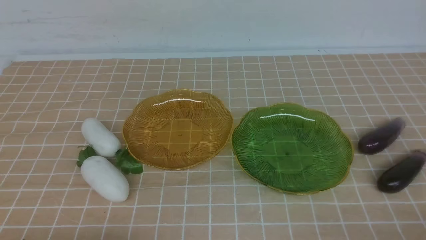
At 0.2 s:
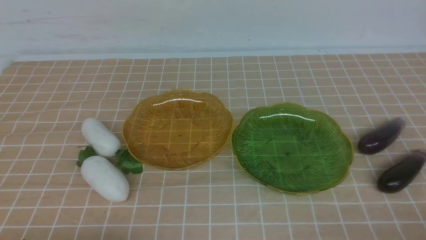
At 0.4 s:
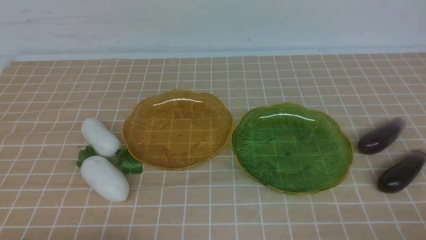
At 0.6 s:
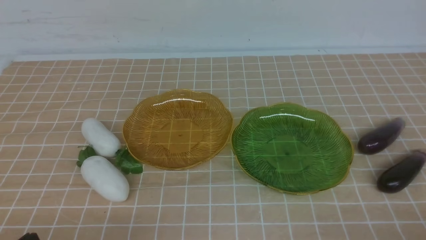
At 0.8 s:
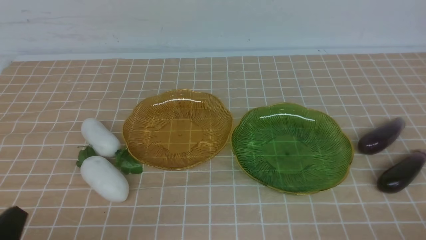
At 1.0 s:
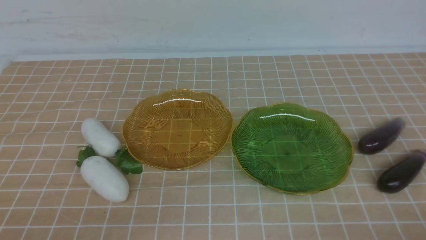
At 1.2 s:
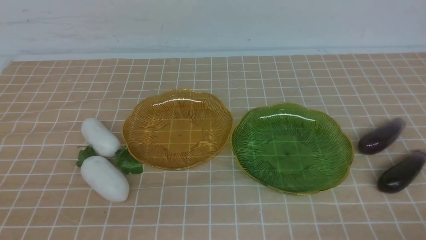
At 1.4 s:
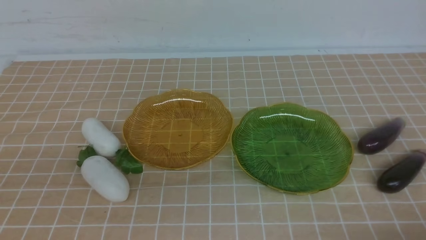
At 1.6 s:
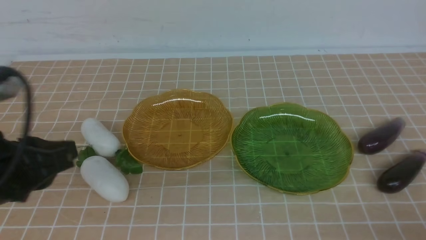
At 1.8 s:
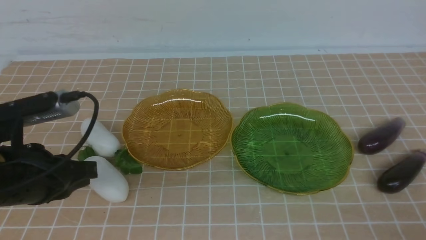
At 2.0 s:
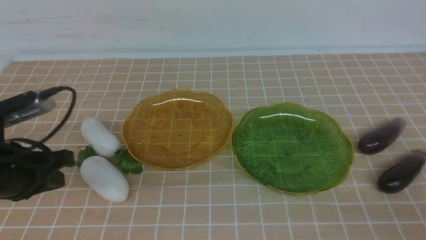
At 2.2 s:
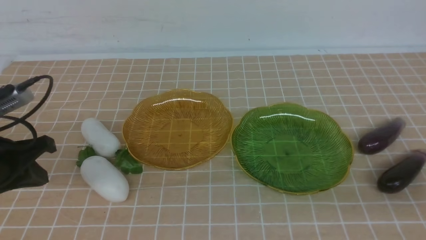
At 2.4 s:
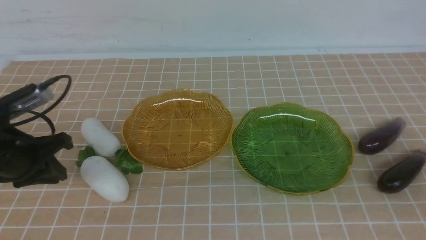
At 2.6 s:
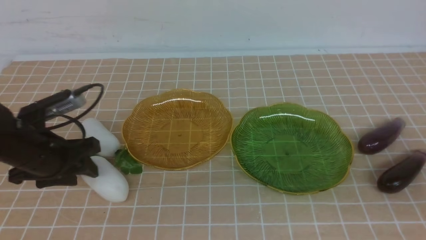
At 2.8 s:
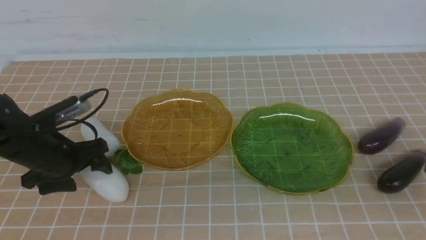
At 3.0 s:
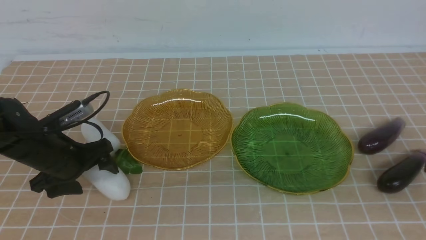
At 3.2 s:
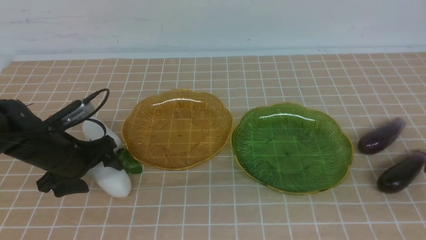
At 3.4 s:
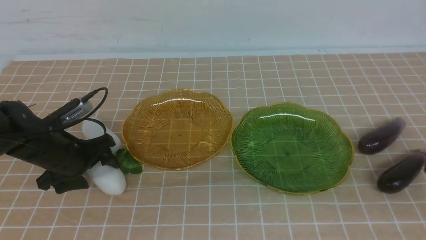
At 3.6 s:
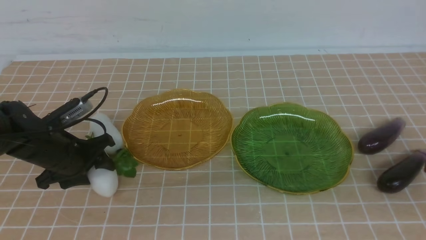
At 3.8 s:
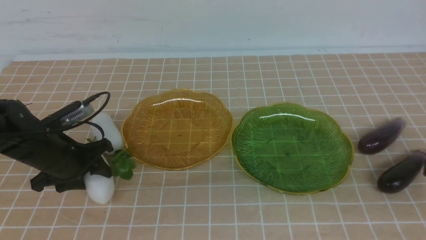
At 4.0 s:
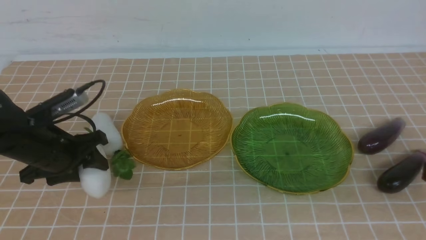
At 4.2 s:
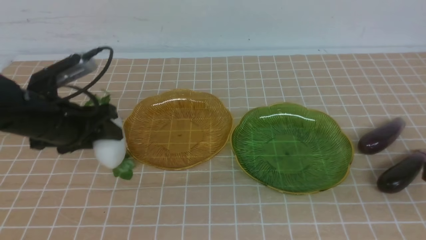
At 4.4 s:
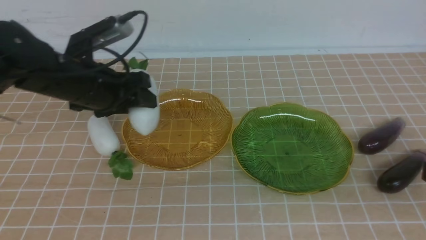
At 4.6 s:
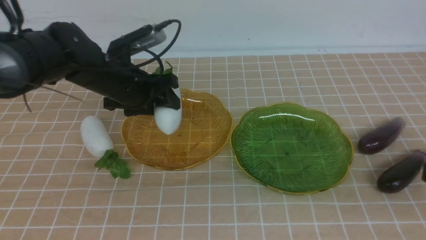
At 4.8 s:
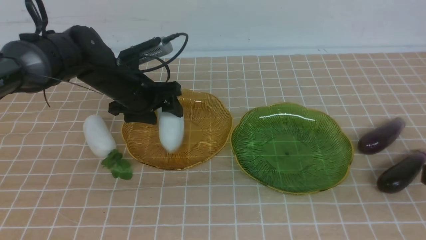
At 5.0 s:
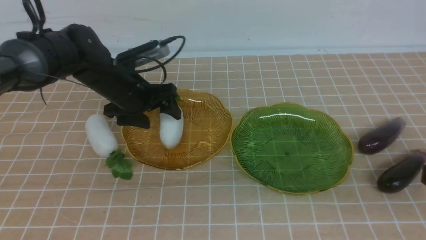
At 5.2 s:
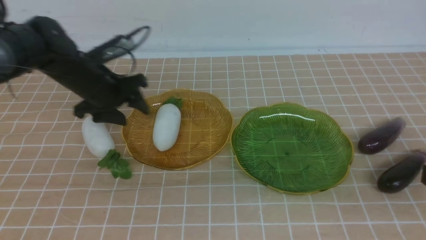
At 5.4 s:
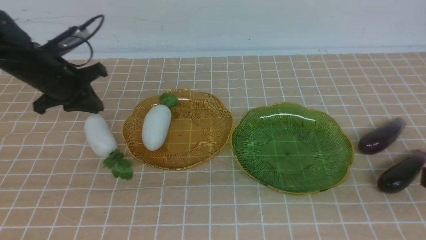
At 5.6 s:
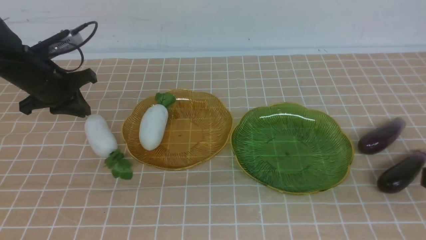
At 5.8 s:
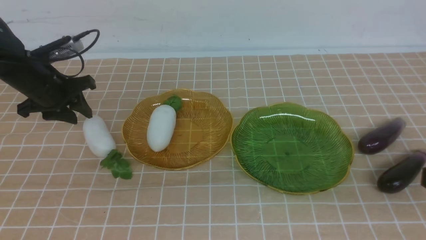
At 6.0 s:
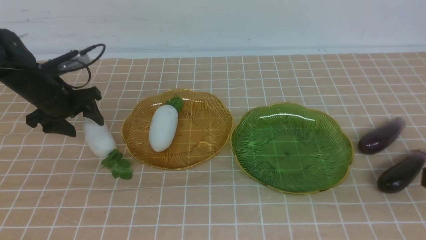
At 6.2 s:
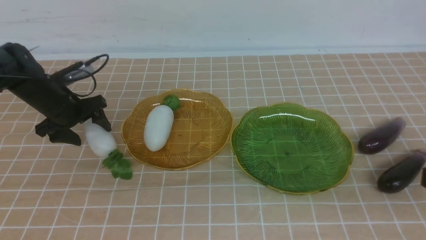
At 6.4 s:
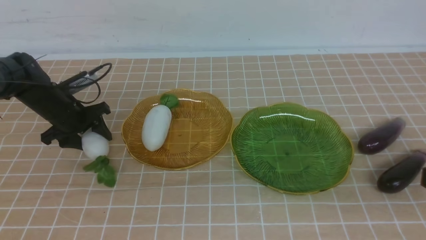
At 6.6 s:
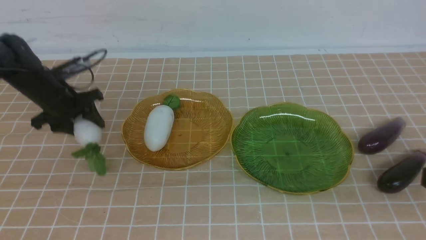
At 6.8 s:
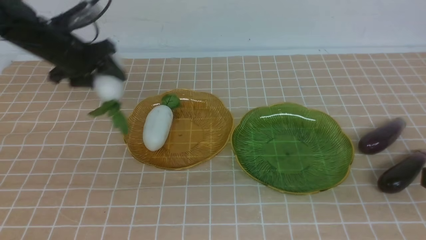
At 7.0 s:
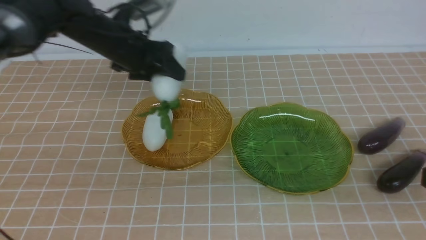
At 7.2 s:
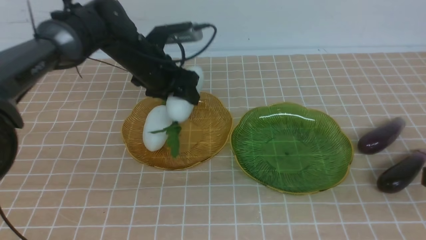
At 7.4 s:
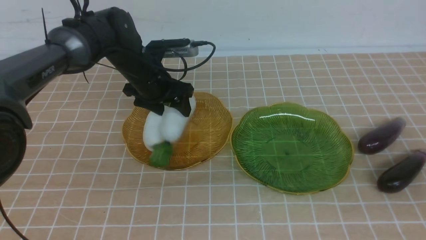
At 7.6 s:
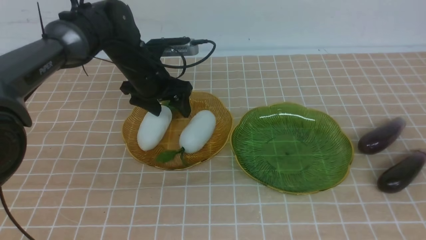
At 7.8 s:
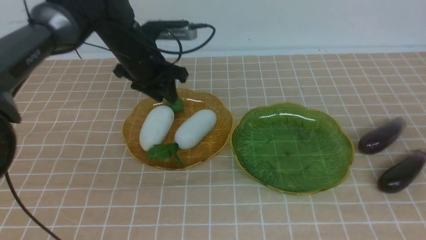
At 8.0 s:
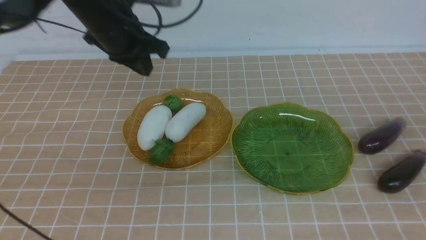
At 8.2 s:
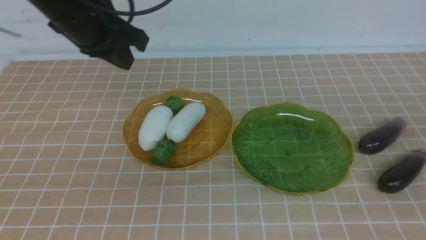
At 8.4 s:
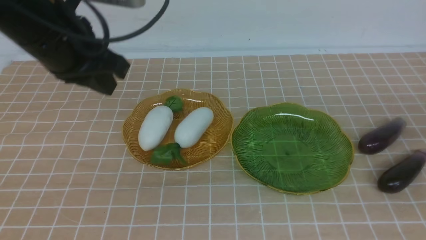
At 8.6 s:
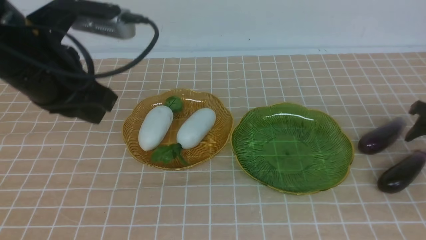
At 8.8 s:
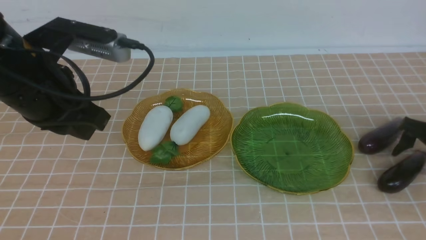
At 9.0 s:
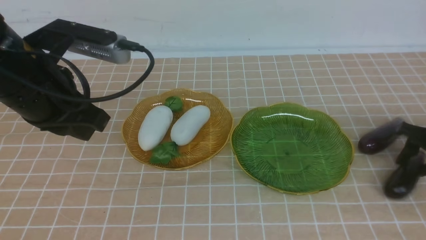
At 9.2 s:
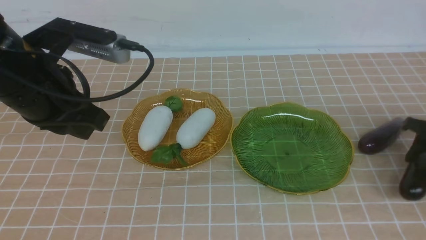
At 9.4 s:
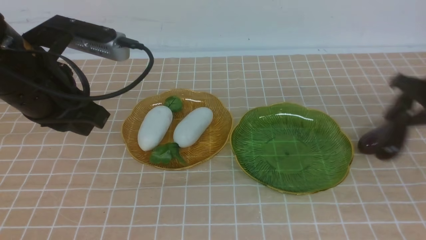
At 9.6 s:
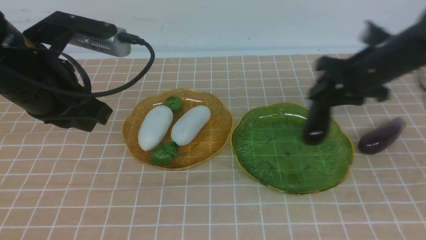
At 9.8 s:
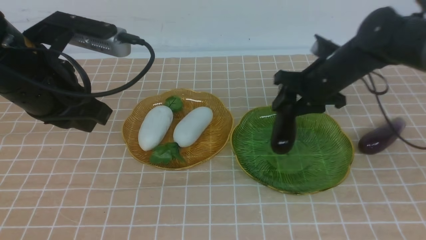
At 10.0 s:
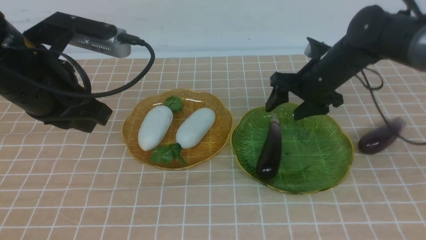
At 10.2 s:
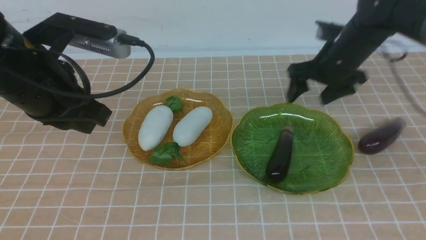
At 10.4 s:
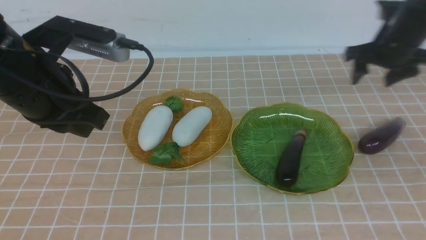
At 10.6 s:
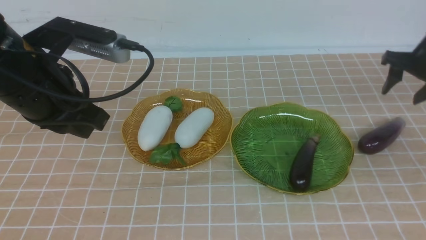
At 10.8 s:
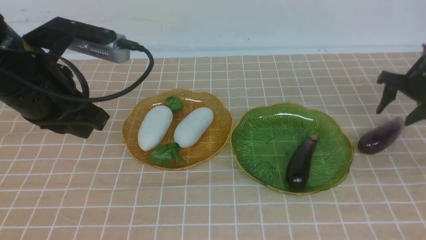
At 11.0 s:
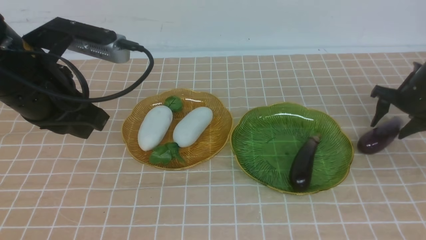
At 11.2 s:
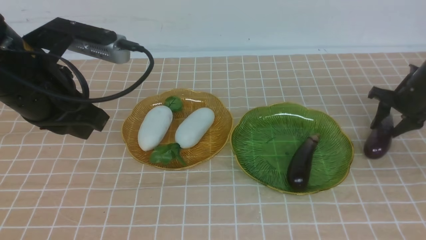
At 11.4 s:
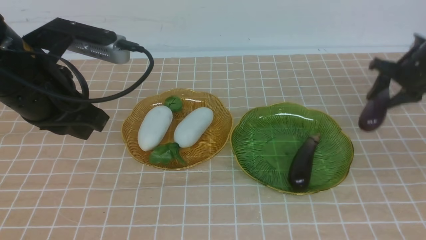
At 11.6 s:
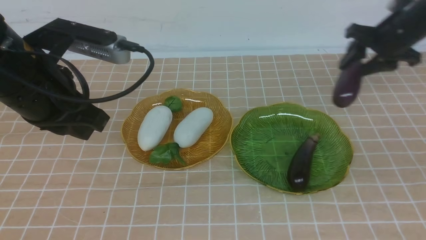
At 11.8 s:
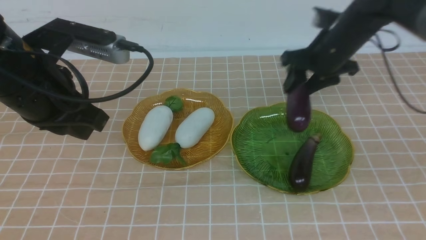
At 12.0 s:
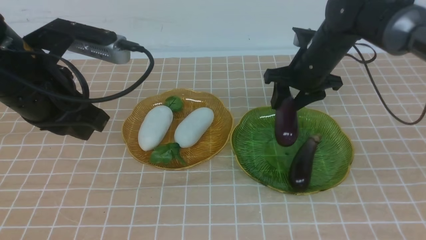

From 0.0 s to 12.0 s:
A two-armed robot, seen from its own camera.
Step, from 0.0 s to 7.6 s: use the left arm to grab a radish and put it into the left plate.
From 0.0 s to 1.6 s: The left gripper goes about 20 cm forward and upward.
From 1.6 s to 3.0 s: The left gripper shifts roughly 15 cm forward and downward, and opens. Meanwhile the right gripper heads upward, covering roughly 10 cm.
From 3.0 s to 4.4 s: The left gripper is displaced upward and to the right by some 10 cm, and closes its fingers.
From 4.4 s to 6.0 s: The left gripper shifts about 15 cm to the left, downward and forward, and closes, then opens again.
From 6.0 s to 7.6 s: The right gripper moves forward, about 10 cm; the left gripper travels to the right and upward by about 20 cm, and closes its fingers.
From 7.6 s to 9.0 s: The left gripper moves backward, some 20 cm, and closes up; the right gripper moves downward and forward, roughly 25 cm, and opens.
From 9.0 s to 10.4 s: The right gripper shifts approximately 15 cm upward and forward, and travels to the left and back again, approximately 20 cm each way.
From 10.4 s to 12.0 s: The right gripper goes about 15 cm to the left and upward.

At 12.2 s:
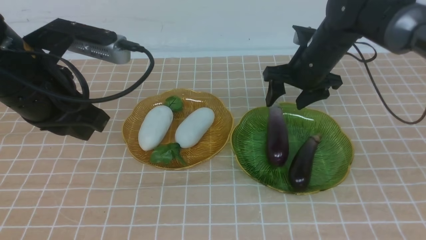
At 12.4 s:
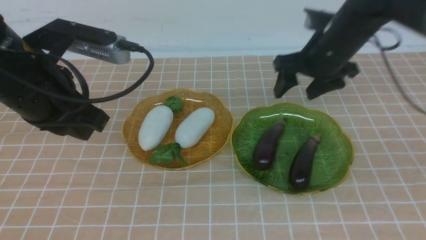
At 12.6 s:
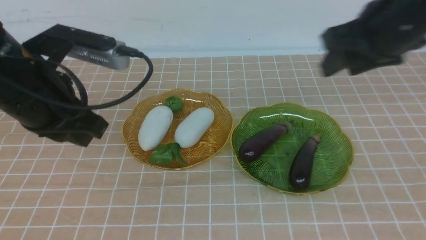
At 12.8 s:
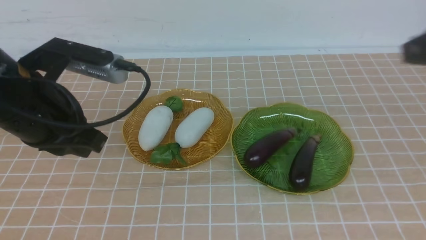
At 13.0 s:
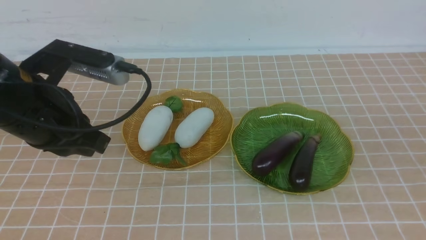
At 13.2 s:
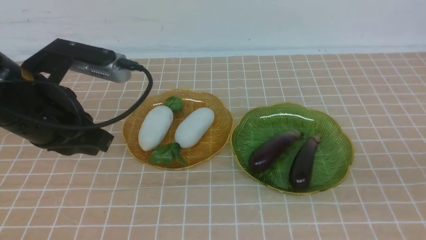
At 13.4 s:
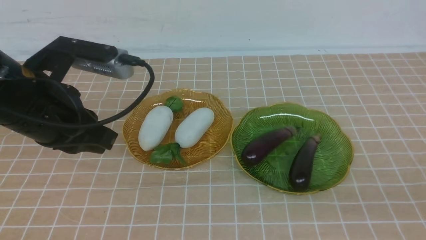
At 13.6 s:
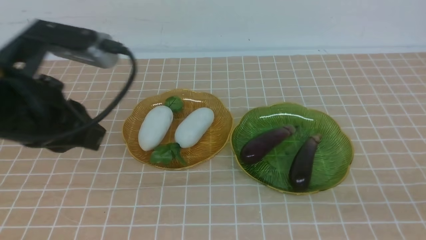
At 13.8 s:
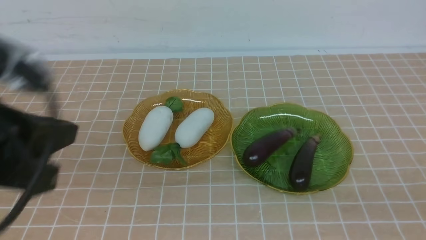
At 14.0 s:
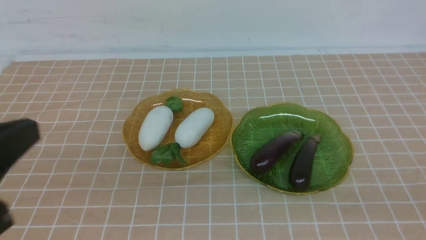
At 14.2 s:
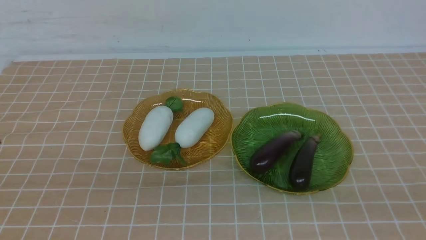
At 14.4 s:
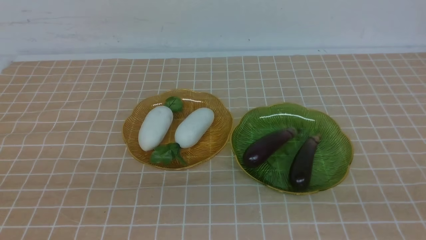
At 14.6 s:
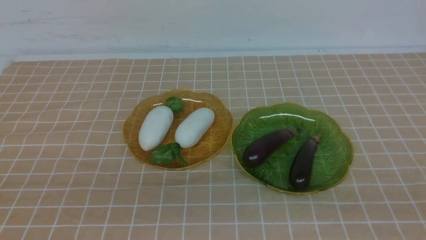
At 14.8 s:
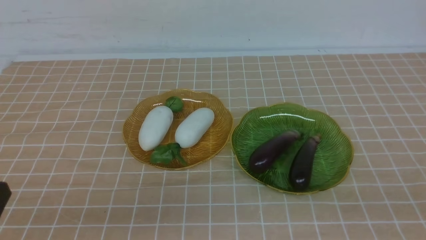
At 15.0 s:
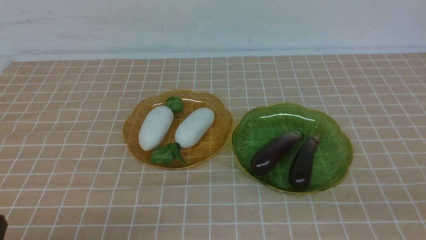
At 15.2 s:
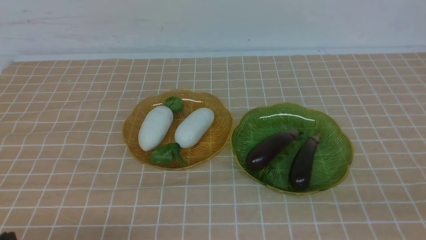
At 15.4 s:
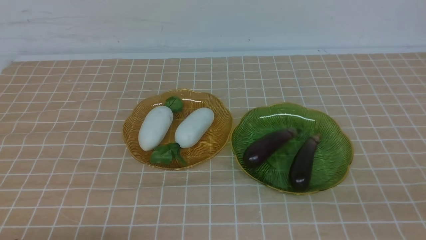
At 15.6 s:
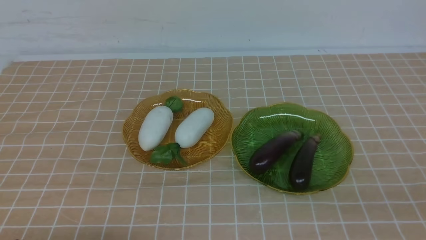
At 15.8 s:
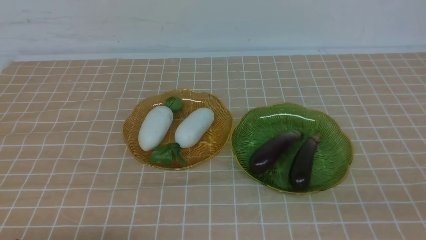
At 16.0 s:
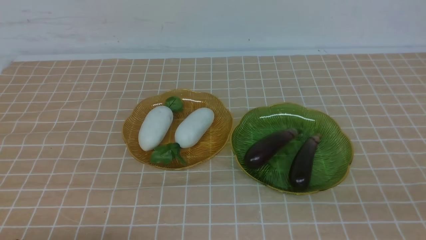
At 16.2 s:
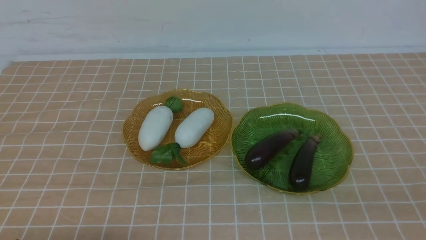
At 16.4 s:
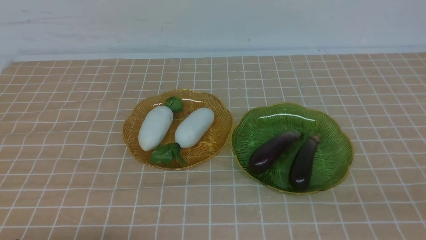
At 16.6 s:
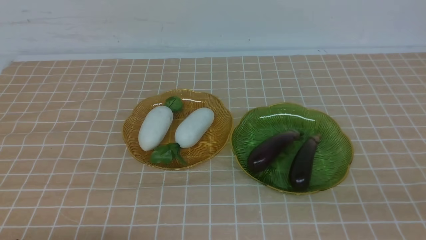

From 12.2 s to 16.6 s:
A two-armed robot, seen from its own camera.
From 12.2 s to 13.6 s: Both grippers move backward, approximately 25 cm. The right gripper closes up.
From 13.6 s to 15.2 s: The left gripper travels downward by about 20 cm.
